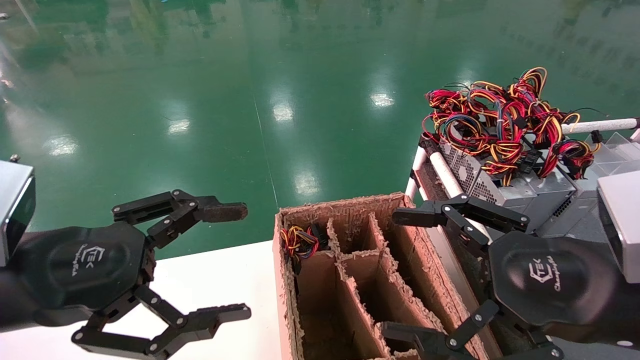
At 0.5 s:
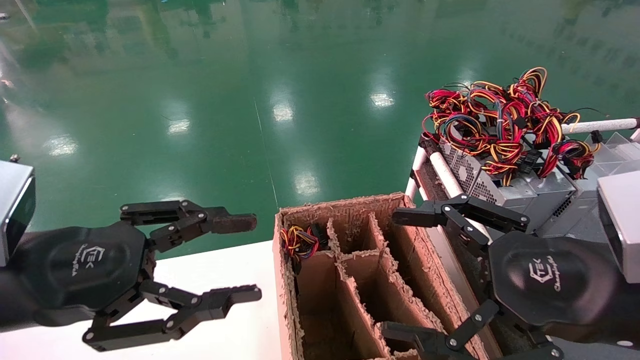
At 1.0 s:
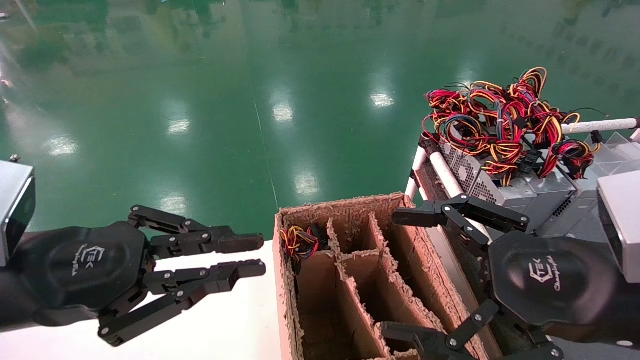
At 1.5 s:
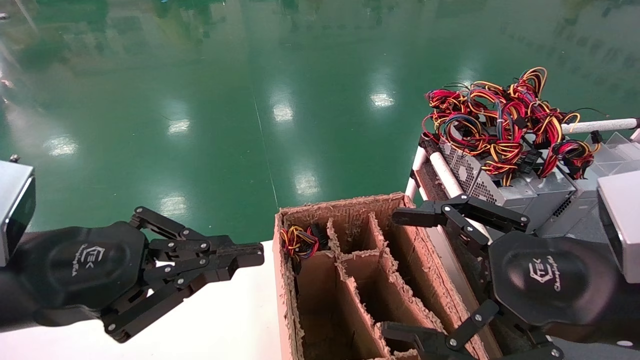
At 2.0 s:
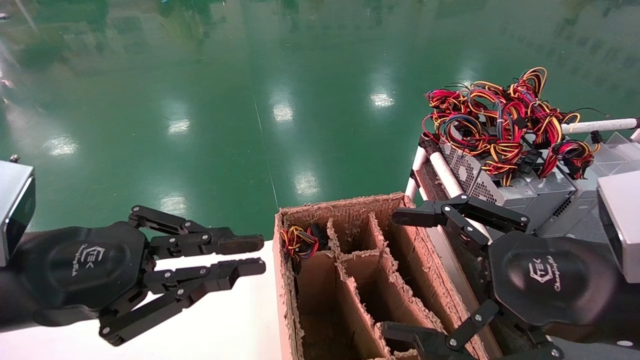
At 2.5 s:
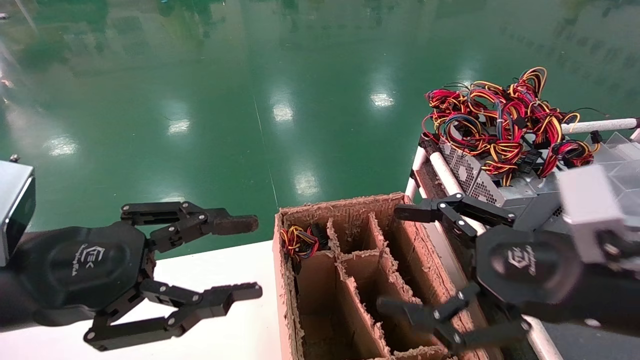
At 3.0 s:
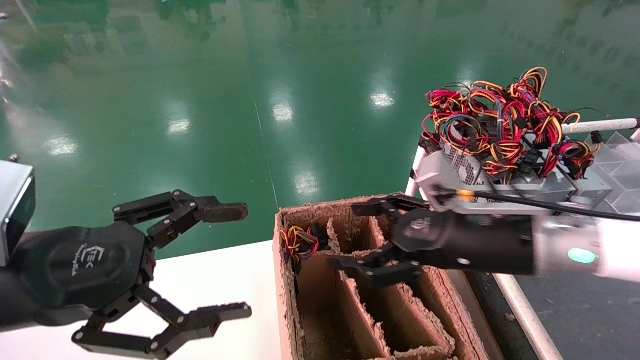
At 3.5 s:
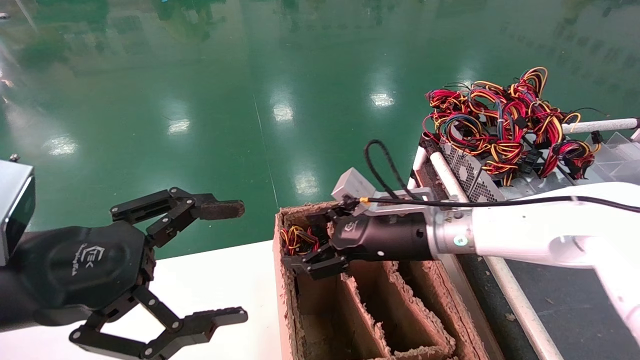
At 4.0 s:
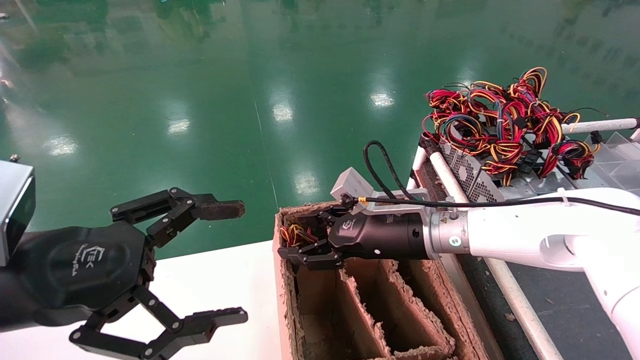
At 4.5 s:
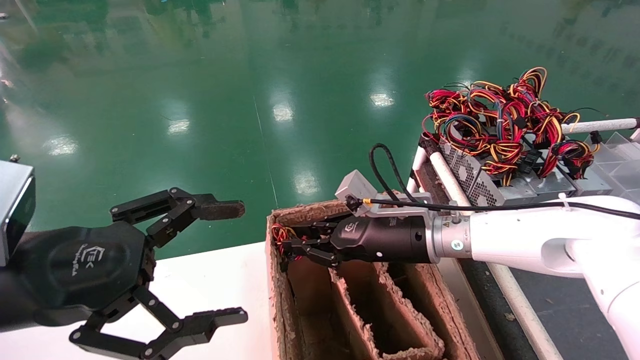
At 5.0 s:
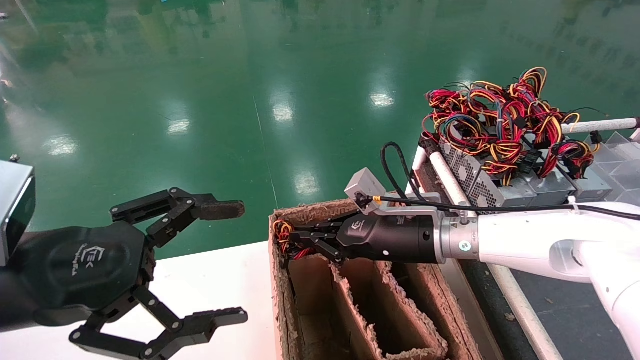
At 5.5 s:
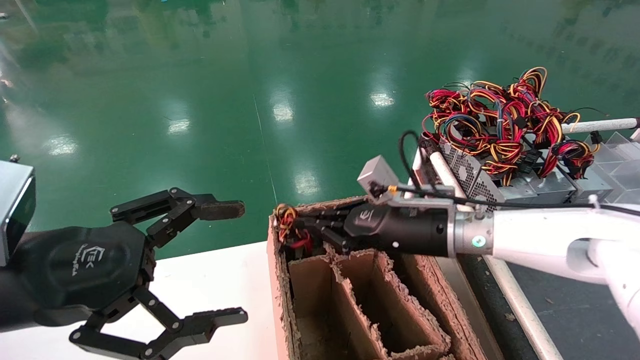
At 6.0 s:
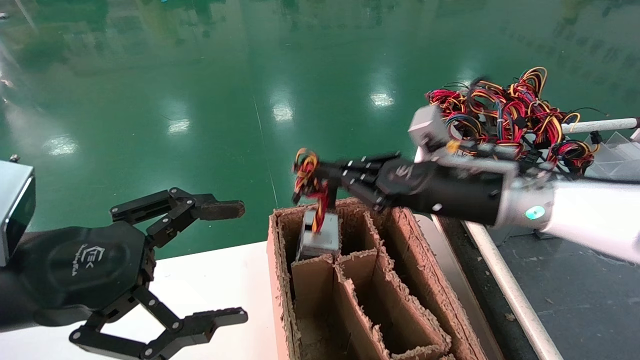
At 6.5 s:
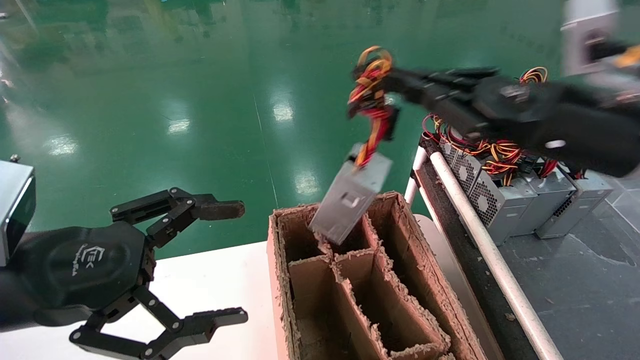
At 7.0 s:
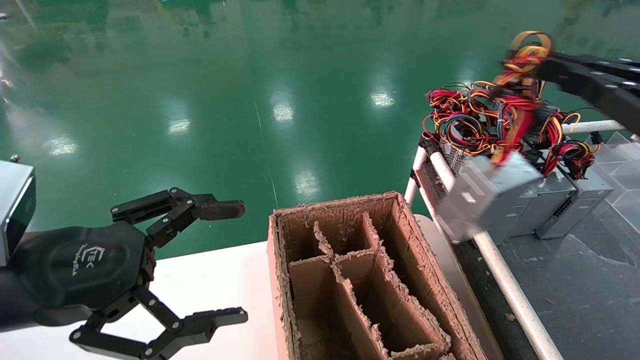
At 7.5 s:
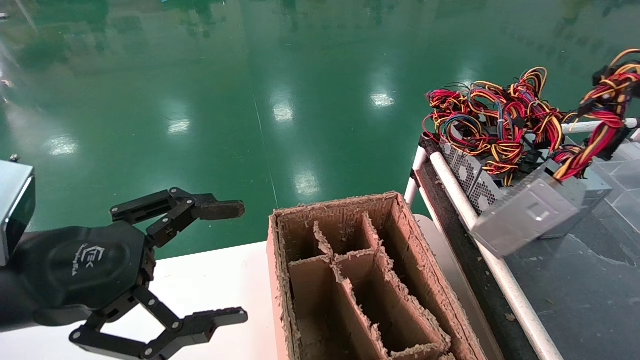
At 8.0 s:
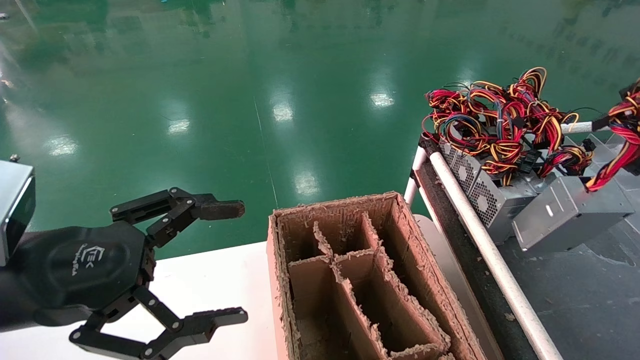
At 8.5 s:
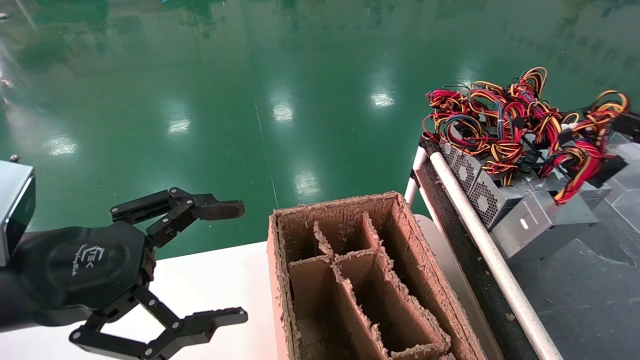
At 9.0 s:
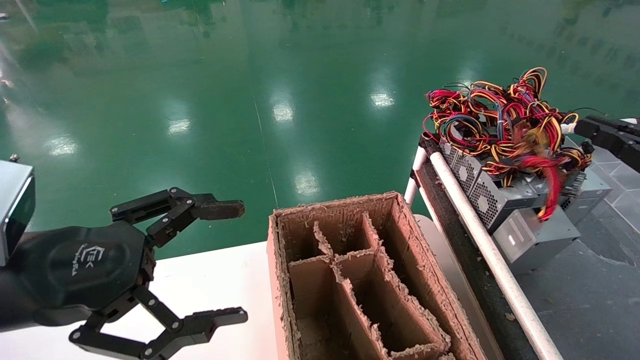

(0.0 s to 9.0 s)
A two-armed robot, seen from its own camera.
Step, 1.5 s - 5.0 s: Grab and lift the power supply from the large box.
Step, 5.5 s - 9.0 s: Place the power supply on the operating table.
0.0 s - 2.0 s: The left gripper closes up.
2.0 s - 4.5 s: The right gripper heads forward and to the left, covering about 25 cm, and closes up, while the left gripper opens up.
4.5 s - 7.0 s: The right gripper goes about 35 cm to the right, backward and upward.
7.0 s - 9.0 s: The right gripper goes roughly 10 cm to the right and downward.

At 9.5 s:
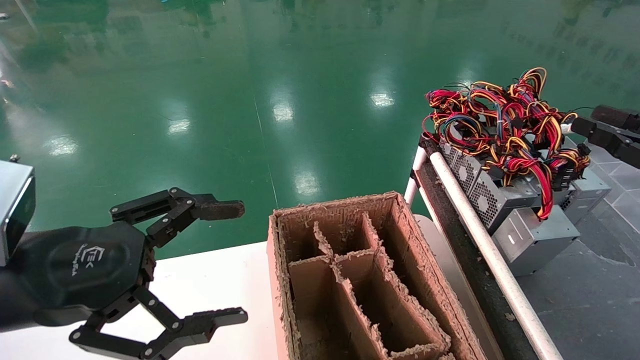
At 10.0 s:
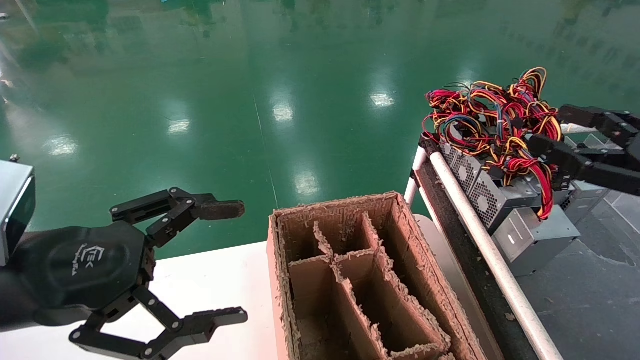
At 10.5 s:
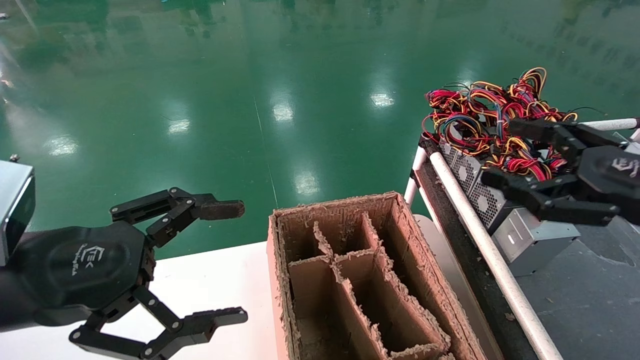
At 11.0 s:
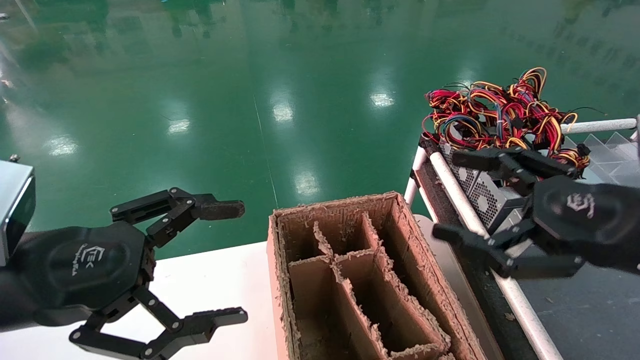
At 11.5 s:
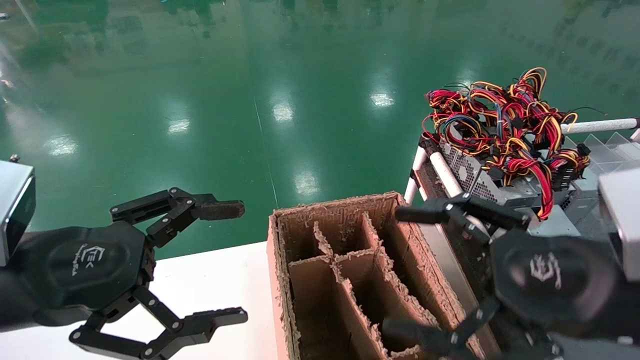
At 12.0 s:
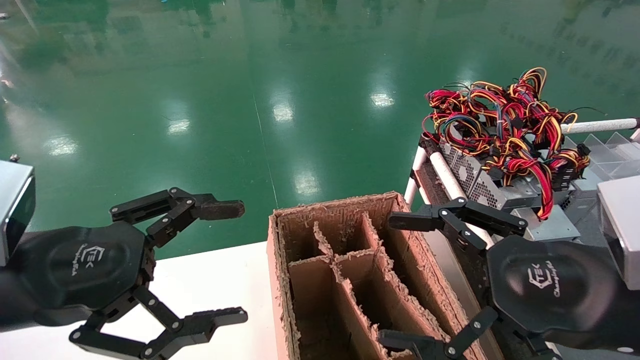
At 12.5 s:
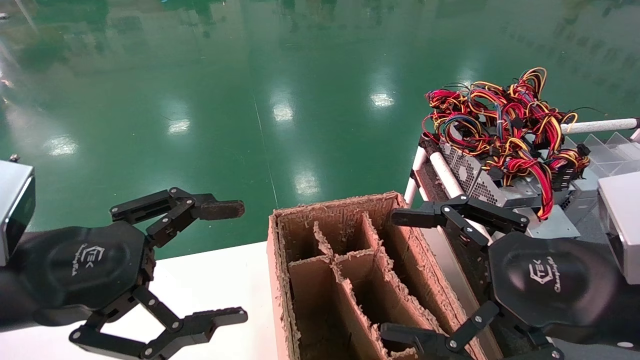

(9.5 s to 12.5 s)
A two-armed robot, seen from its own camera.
9.5 s - 11.0 s: The right gripper goes about 15 cm to the left, and opens.
11.0 s - 12.5 s: The right gripper heads to the left, covering about 5 cm.

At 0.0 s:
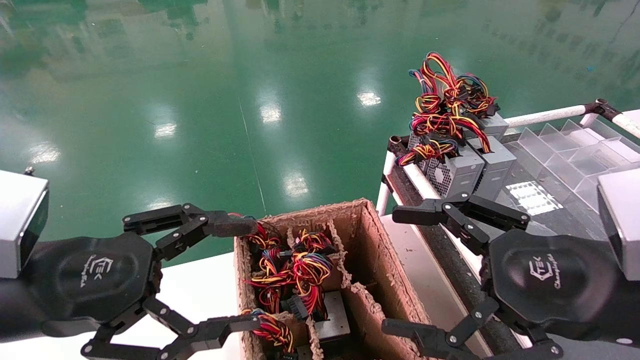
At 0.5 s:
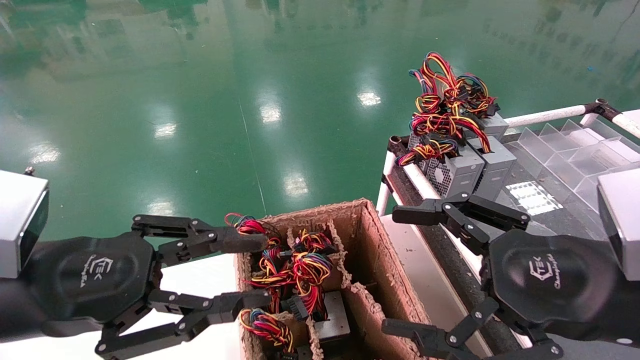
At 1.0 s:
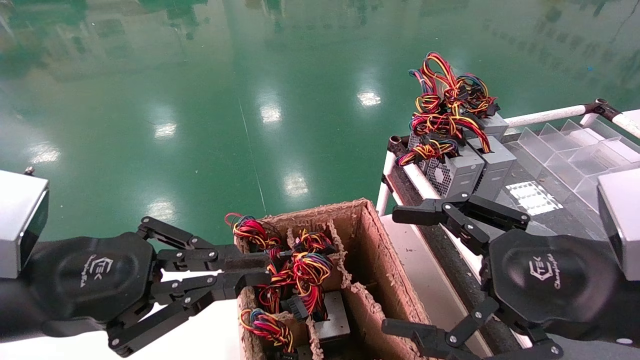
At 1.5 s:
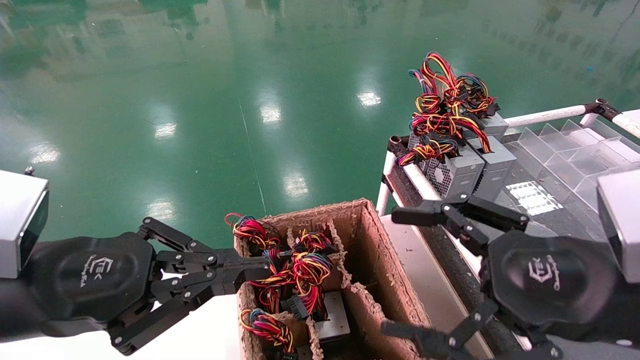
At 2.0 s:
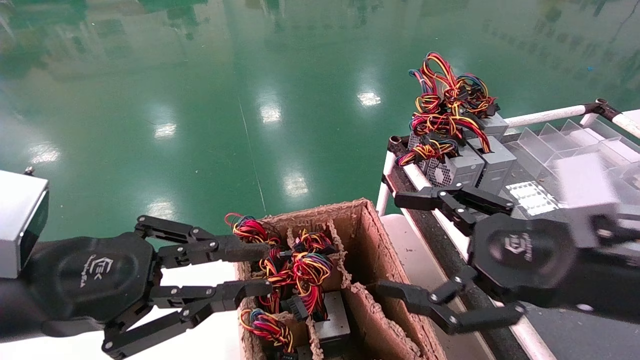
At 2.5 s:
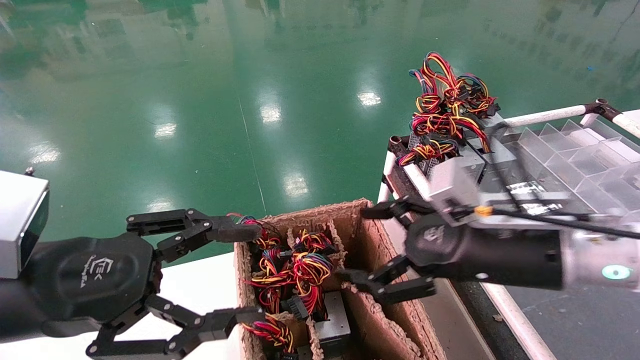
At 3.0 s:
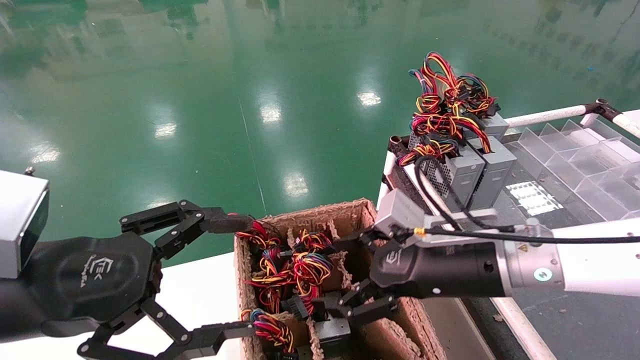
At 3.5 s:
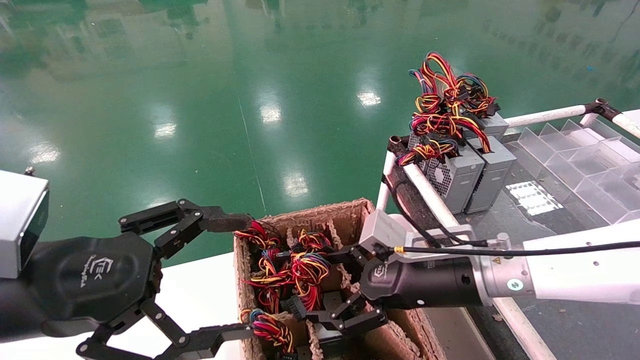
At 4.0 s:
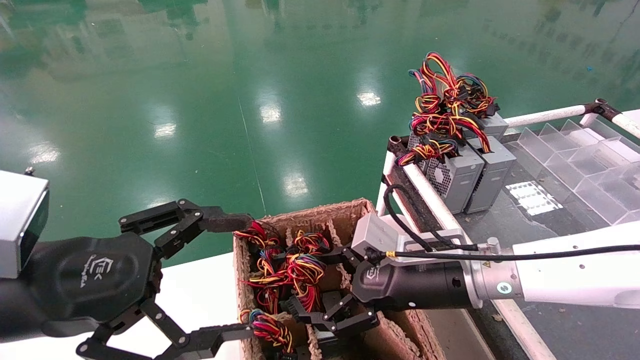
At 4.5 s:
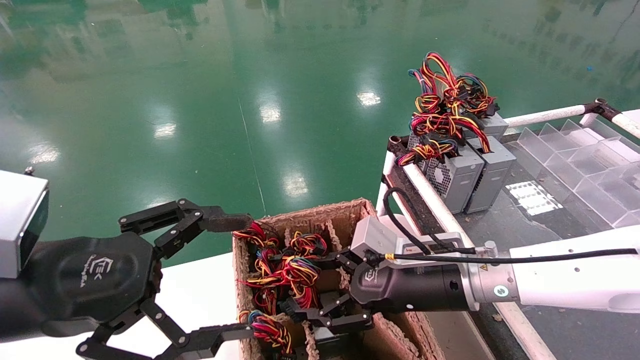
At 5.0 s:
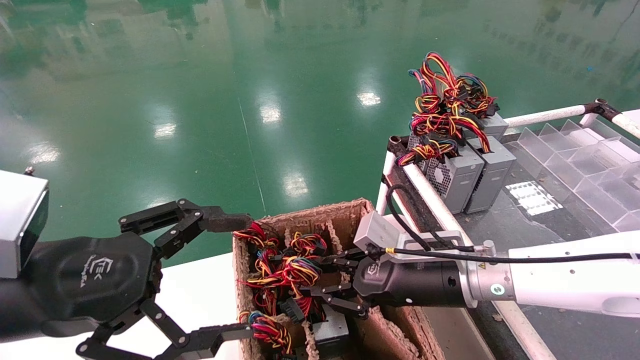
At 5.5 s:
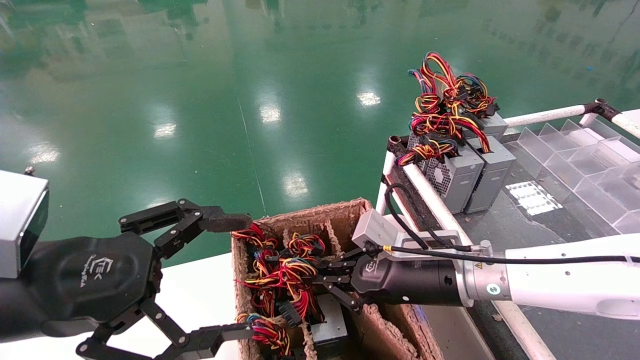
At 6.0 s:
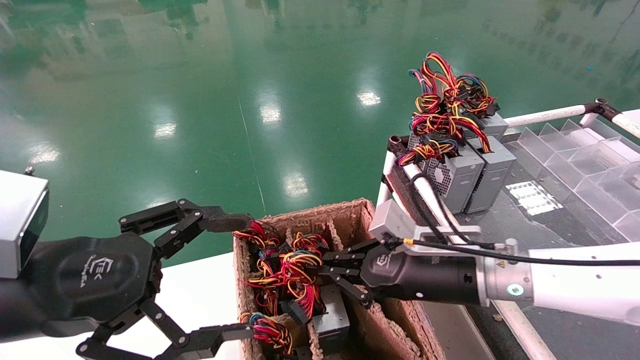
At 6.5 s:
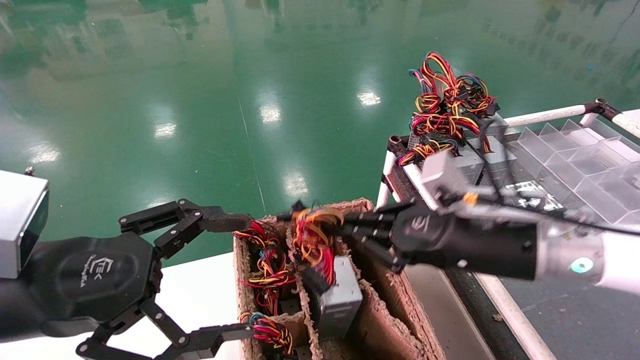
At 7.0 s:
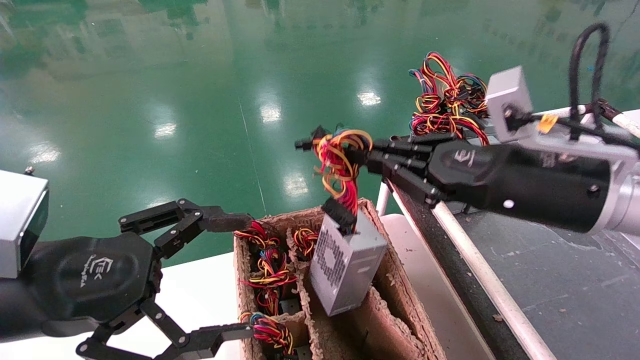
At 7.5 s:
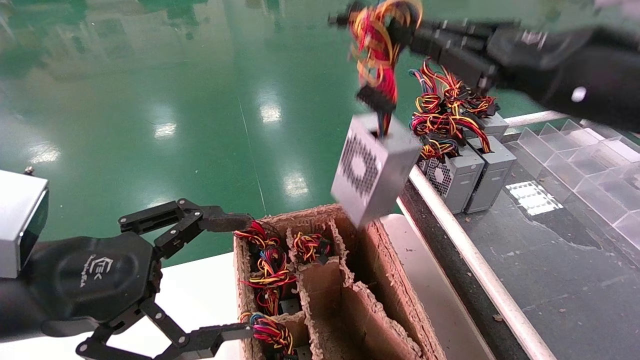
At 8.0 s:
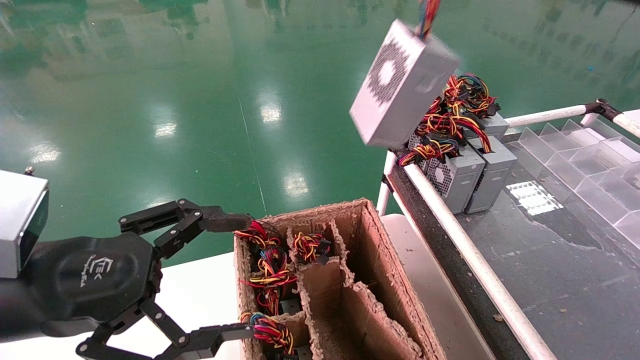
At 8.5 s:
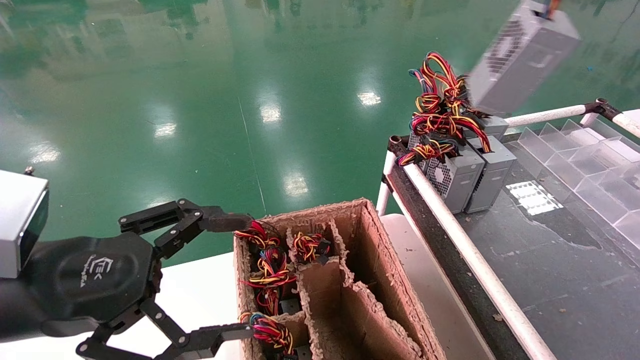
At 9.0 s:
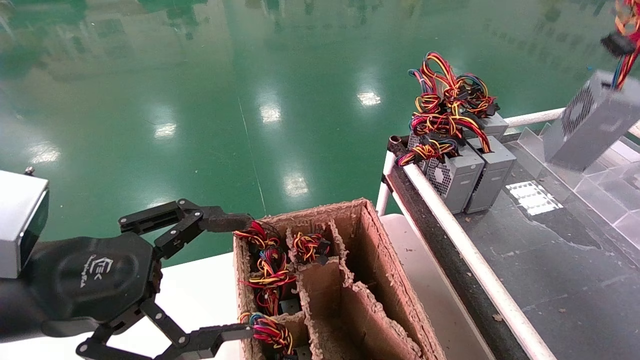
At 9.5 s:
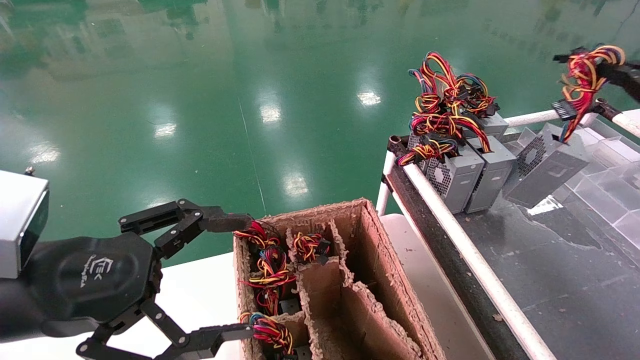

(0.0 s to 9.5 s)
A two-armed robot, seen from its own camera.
Step, 1.5 s - 5.0 s: Grab and lift the power supply from the large box.
0.0 s - 2.0 s: The left gripper closes up.
2.0 s - 4.0 s: The left gripper opens, while the right gripper is displaced forward, to the left and downward by some 15 cm.
4.0 s - 5.5 s: The right gripper closes its fingers.
5.5 s - 7.5 s: The right gripper travels upward and to the right by roughly 25 cm.
7.5 s - 9.5 s: The right gripper shifts about 20 cm to the right.
